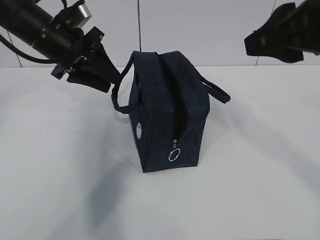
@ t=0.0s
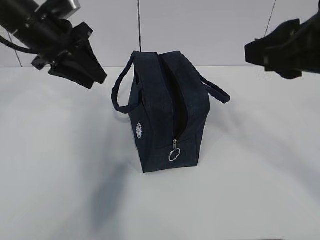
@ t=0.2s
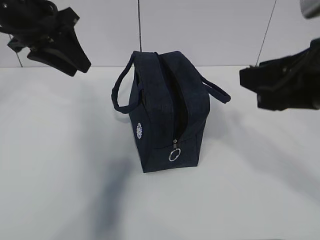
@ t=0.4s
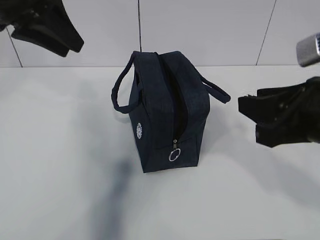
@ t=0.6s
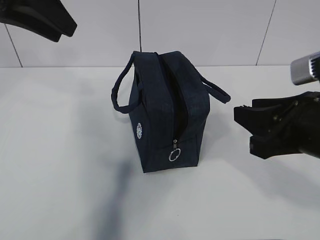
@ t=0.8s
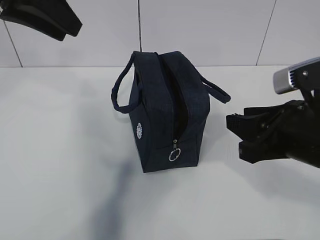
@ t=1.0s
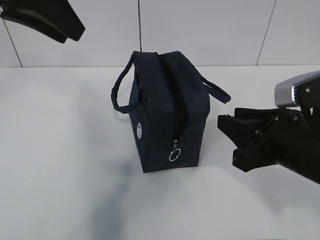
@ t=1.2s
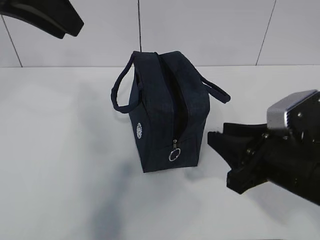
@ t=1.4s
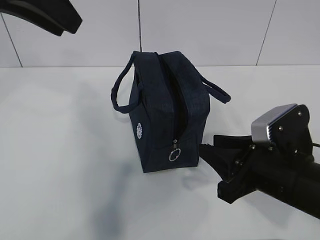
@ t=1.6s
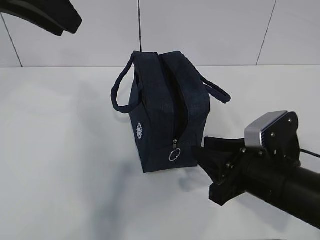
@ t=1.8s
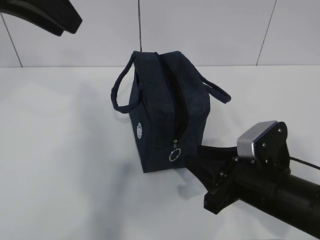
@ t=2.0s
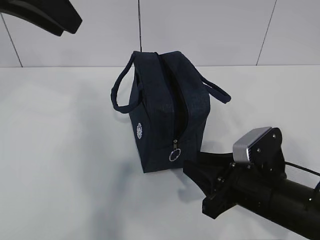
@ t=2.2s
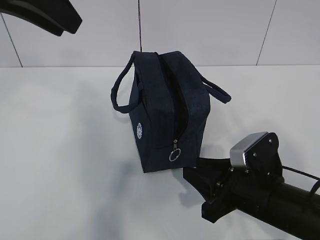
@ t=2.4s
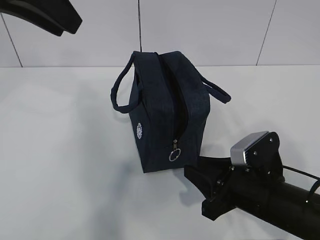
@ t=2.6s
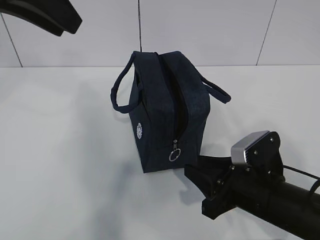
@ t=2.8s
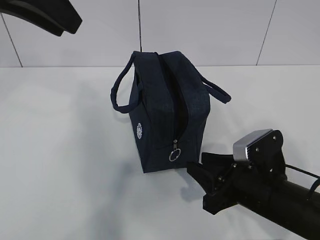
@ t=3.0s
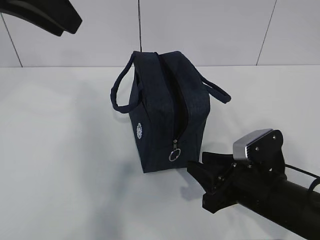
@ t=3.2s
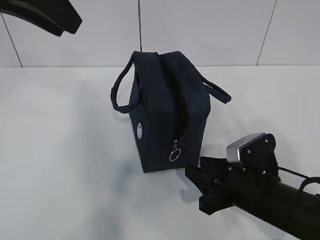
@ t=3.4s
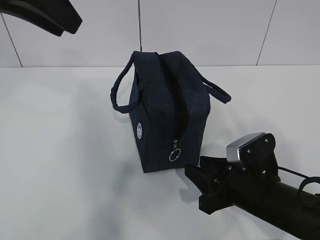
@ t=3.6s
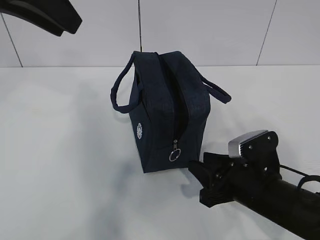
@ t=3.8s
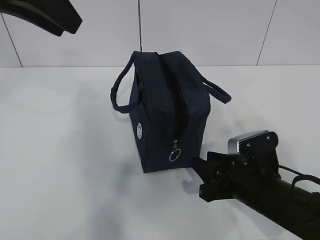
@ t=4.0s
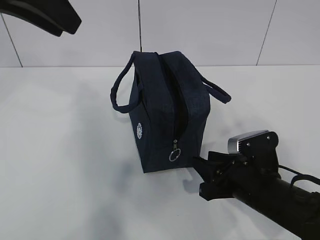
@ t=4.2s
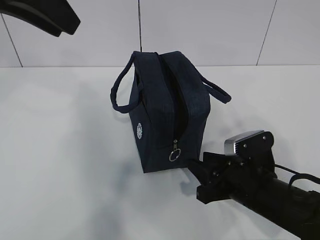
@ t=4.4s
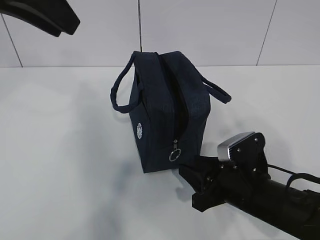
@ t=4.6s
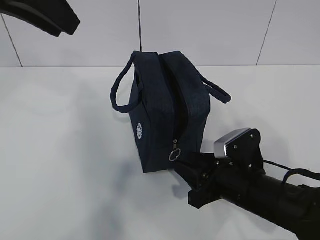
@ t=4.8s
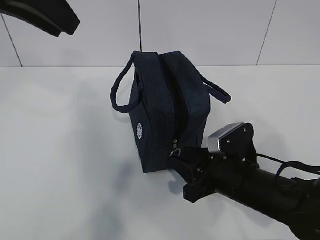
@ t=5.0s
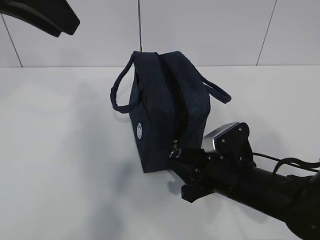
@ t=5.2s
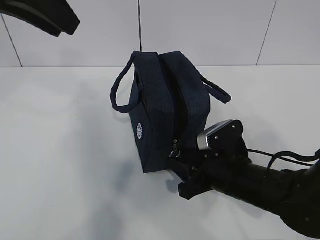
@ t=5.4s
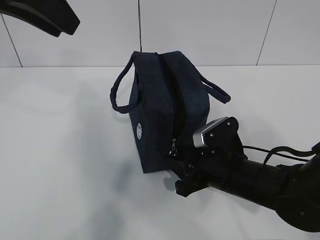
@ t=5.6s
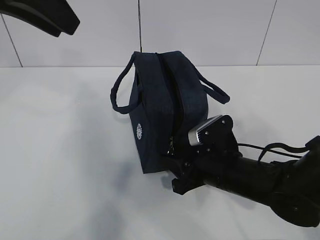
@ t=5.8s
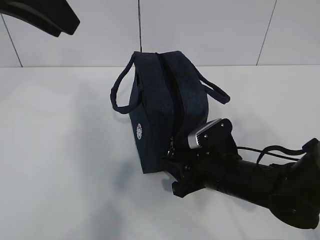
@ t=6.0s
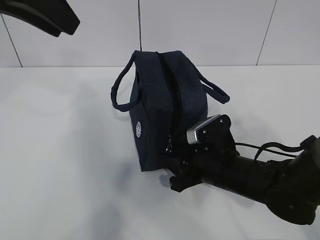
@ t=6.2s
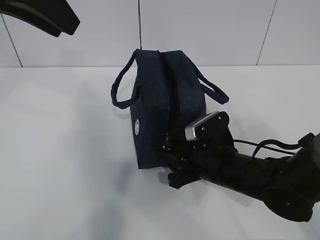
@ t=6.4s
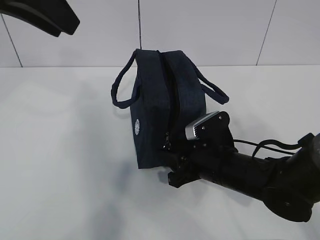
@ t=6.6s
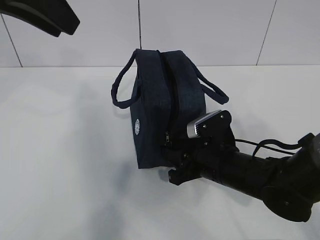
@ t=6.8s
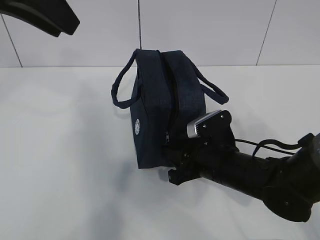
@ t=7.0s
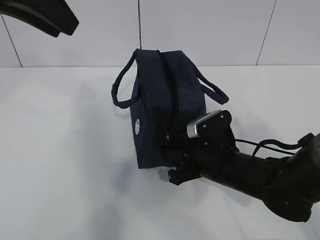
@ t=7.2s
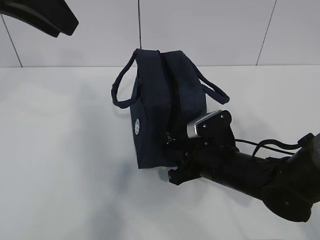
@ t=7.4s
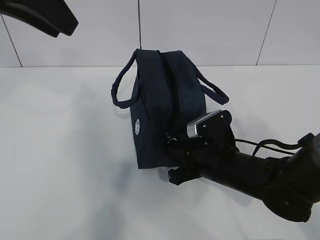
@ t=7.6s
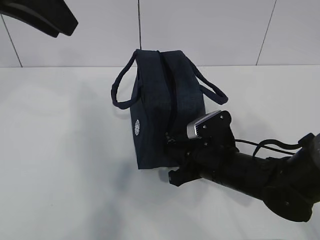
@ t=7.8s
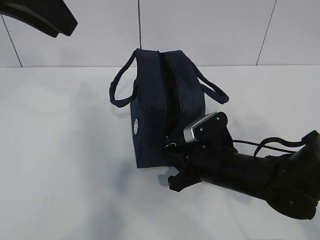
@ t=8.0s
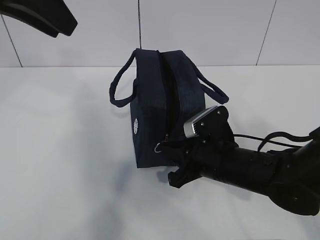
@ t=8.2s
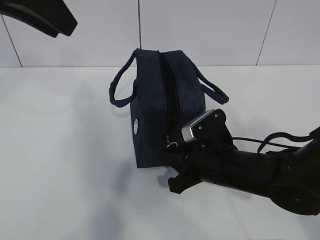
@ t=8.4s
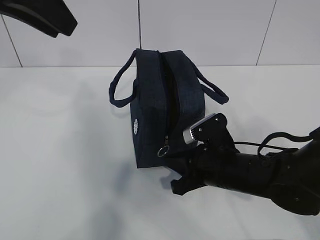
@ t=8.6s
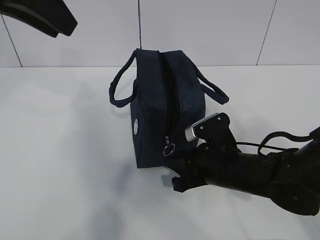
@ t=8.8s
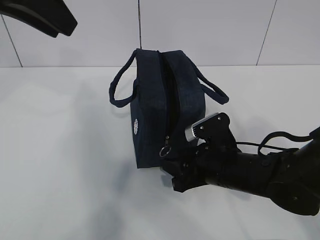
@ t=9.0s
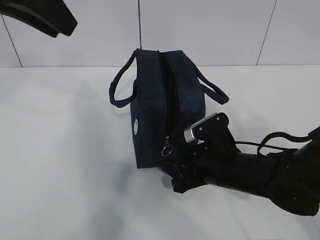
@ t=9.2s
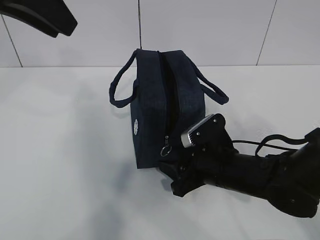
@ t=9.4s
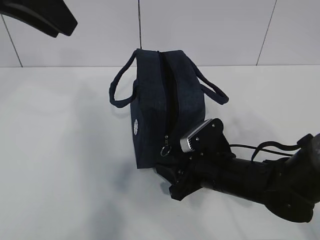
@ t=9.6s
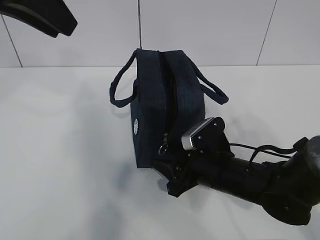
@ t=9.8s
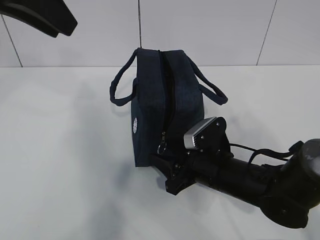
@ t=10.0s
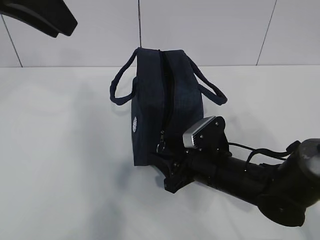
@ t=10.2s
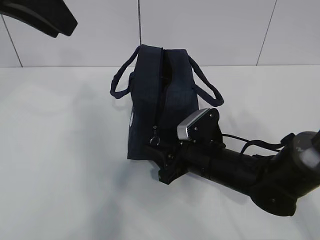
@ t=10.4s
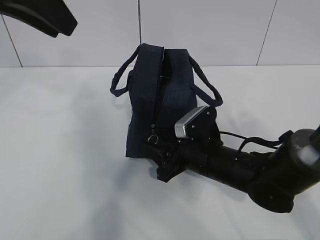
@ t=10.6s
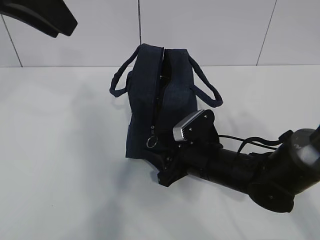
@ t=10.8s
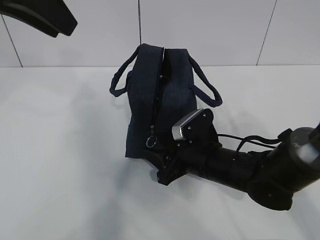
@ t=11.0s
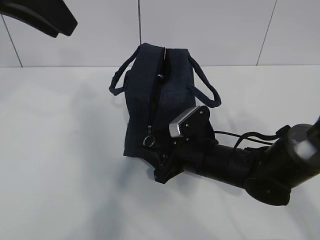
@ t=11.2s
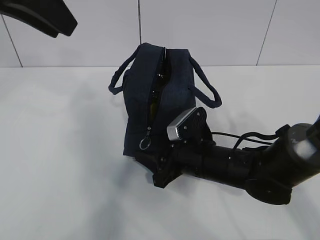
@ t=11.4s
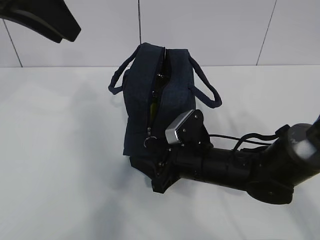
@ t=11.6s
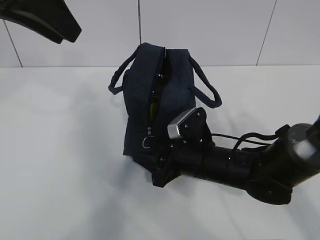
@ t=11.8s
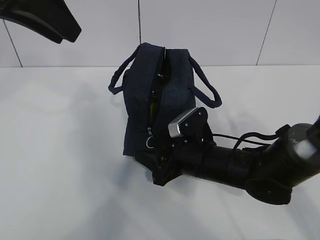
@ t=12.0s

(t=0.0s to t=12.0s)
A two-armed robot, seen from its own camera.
t=0.0s - t=1.6s: The right gripper moves downward, approximately 20 cm. The left gripper is displaced upward and backward by roughly 20 cm.
t=1.6s - t=3.0s: The right gripper is displaced downward by approximately 5 cm.
t=3.0s - t=4.4s: The grippers stay close to where they were, moving slightly.
t=4.4s - t=6.0s: The right gripper shifts by roughly 5 cm.
t=6.0s - t=7.6s: The right gripper closes its fingers.
t=7.6s - t=9.0s: The right gripper opens its fingers.
t=9.0s - t=10.4s: The grippers make only small movements.
t=10.4s - t=12.0s: There are only small adjustments of the grippers.

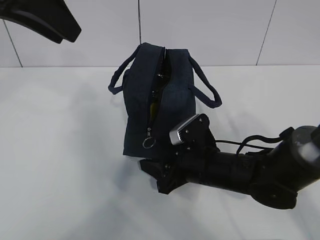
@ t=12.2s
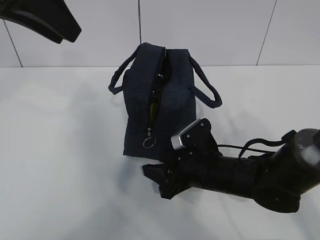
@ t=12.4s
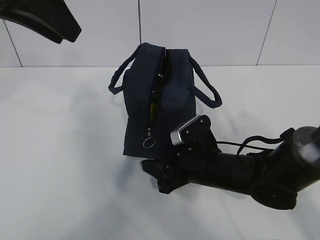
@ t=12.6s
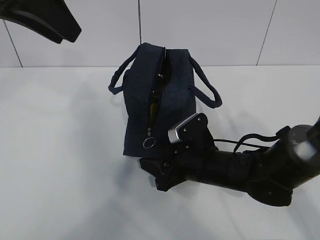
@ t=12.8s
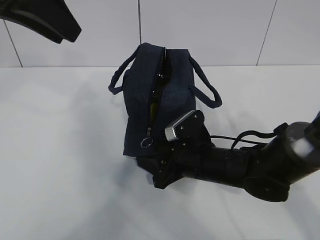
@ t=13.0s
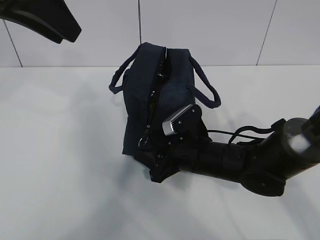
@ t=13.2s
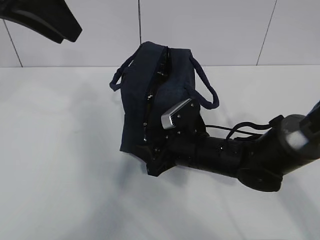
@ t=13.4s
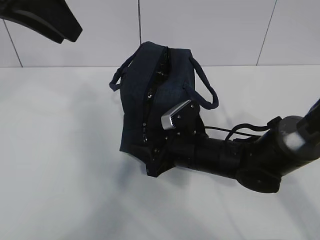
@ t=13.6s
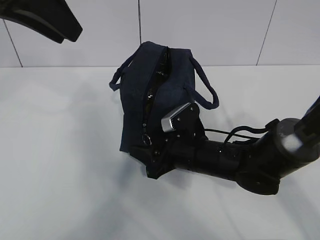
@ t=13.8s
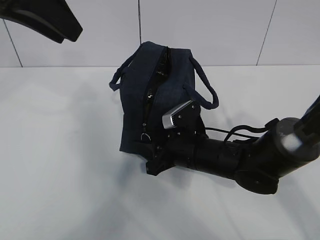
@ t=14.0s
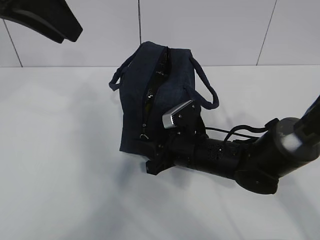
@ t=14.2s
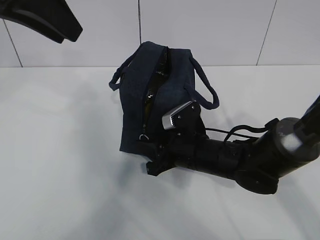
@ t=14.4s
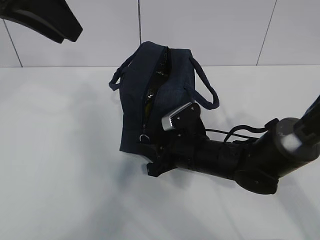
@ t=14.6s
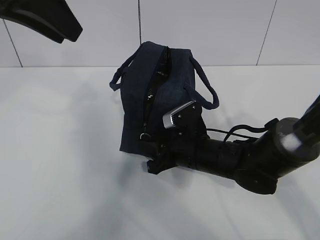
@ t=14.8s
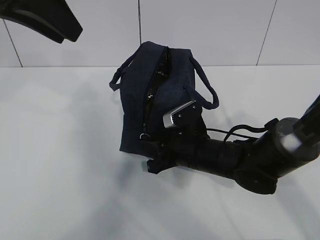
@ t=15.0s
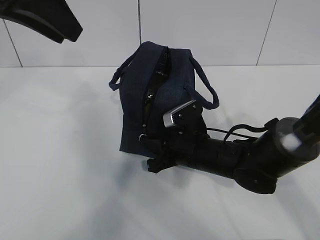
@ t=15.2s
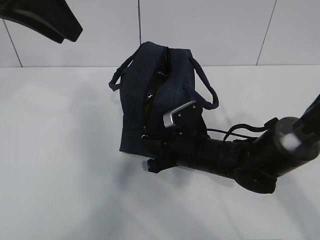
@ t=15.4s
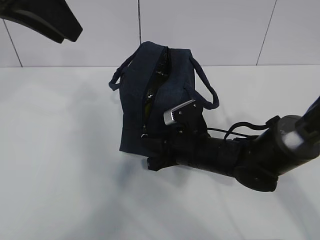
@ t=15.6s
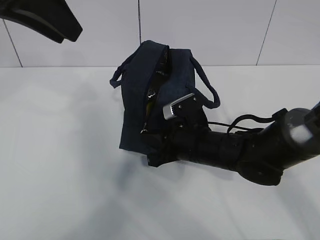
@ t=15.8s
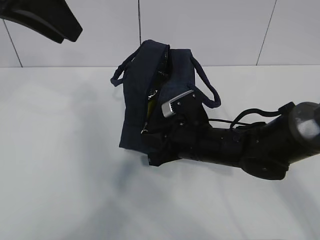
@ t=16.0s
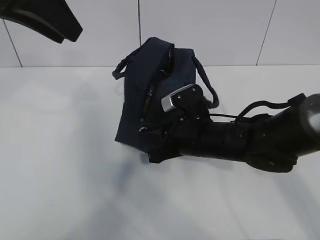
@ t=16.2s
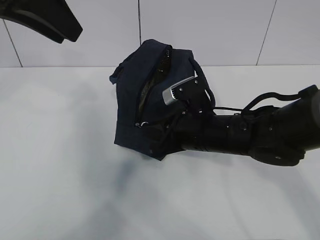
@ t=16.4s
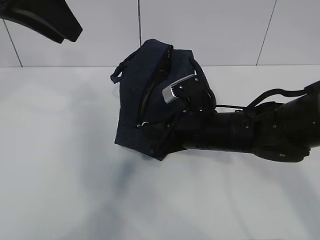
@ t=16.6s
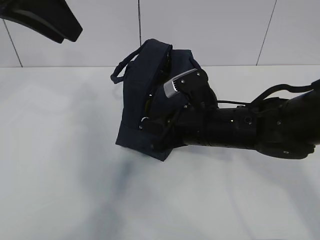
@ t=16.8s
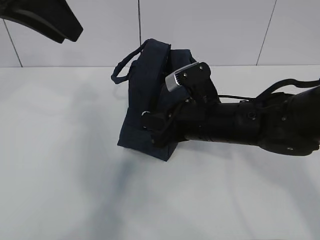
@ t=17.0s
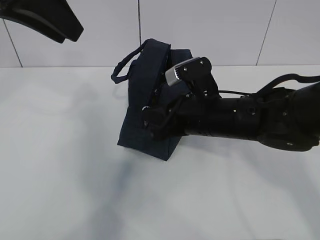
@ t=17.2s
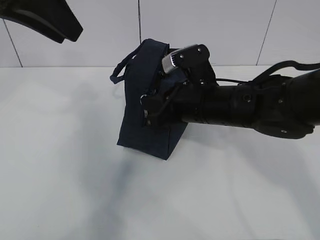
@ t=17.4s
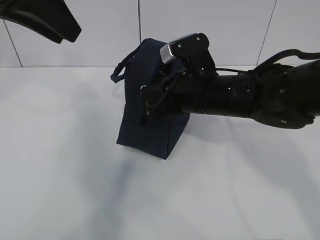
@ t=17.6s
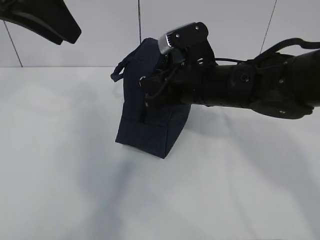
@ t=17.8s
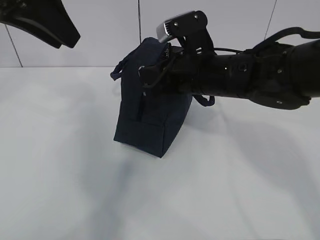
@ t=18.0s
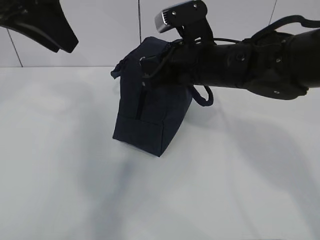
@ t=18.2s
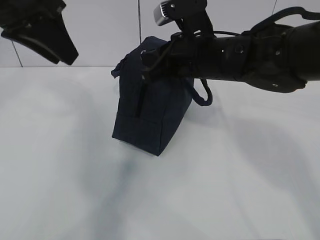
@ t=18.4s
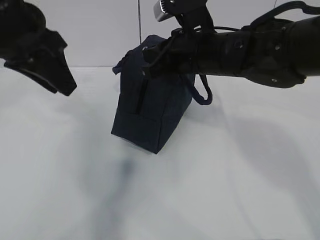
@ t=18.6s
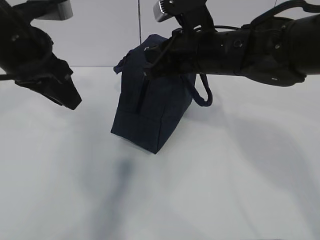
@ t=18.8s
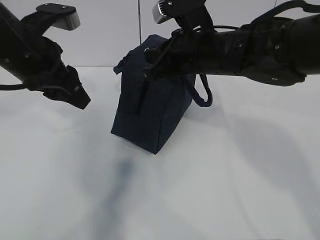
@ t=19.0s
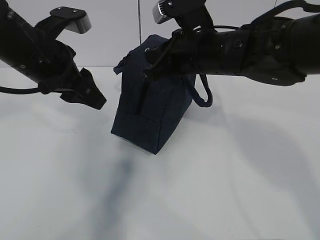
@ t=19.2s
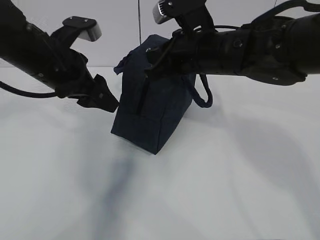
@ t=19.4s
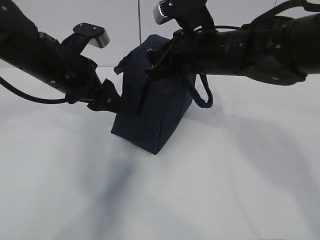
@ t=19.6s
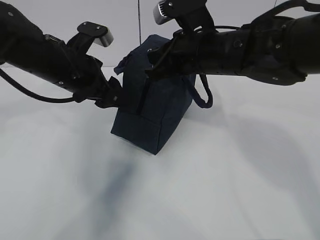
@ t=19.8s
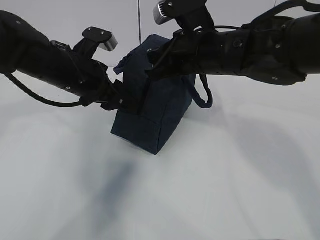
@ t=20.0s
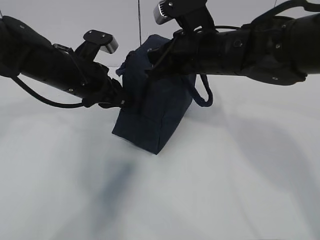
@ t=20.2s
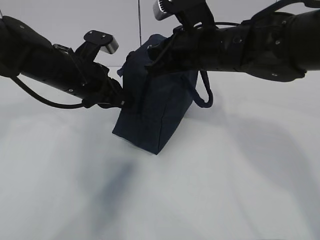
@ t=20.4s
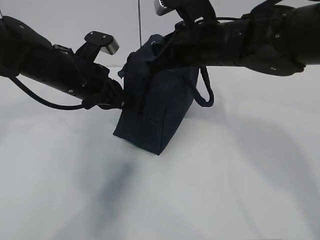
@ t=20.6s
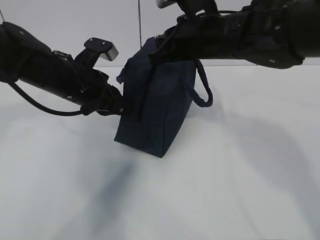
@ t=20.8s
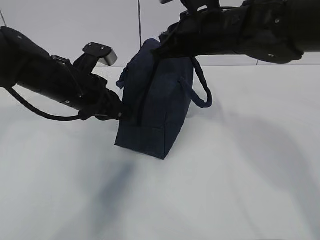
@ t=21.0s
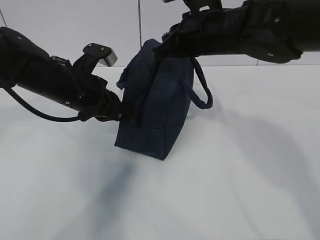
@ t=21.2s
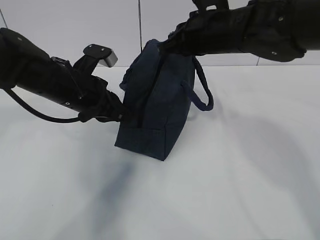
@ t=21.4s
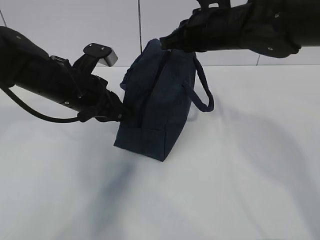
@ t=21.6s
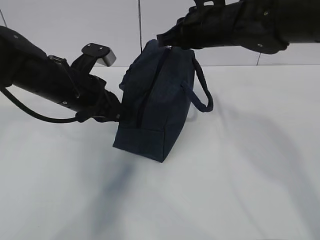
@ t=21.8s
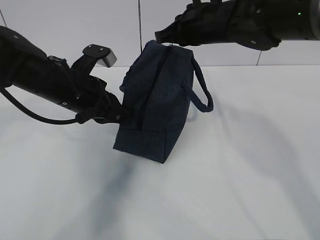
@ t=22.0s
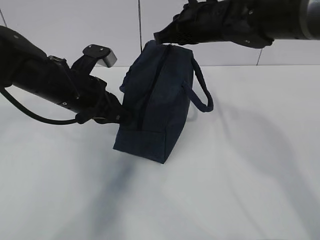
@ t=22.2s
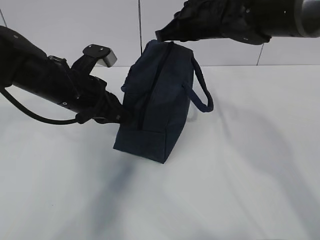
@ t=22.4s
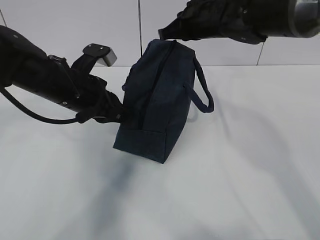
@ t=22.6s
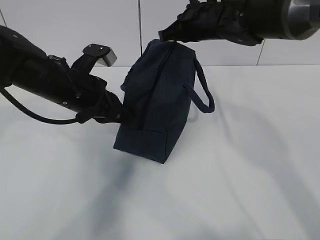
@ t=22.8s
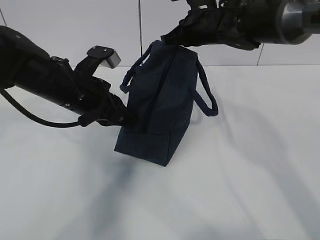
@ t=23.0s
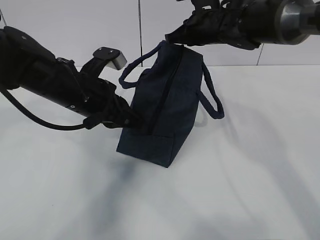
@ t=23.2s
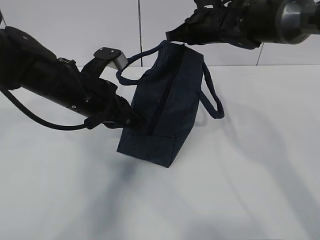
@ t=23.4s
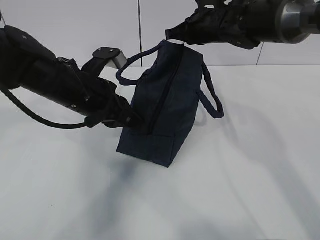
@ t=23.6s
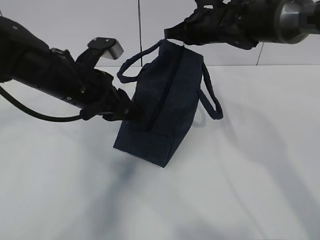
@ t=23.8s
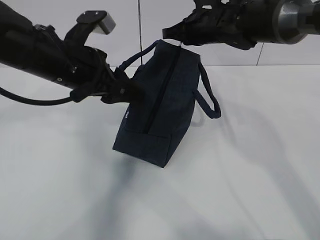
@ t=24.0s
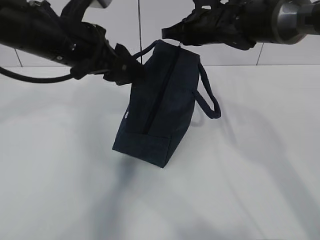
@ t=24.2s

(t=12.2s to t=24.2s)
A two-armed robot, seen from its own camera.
Step, t=12.4s - t=19.0s: Pull the zipper with your right hand.
Step, t=19.2s - t=19.6s: Grab the lunch bag with your left hand.
t=12.2s - t=13.8s: There are only small adjustments of the grippers.
t=13.8s - t=15.2s: The right gripper closes.
t=15.2s - t=16.6s: The right gripper shifts about 5 cm upward.
t=16.6s - t=18.2s: The right gripper heads upward, covering about 10 cm.
t=18.2s - t=19.8s: The left gripper is displaced downward by roughly 15 cm, and opens up.
t=19.8s - t=21.2s: The left gripper closes up.
t=21.2s - t=22.6s: The right gripper heads forward, covering approximately 10 cm.
t=22.6s - t=24.2s: The left gripper shifts roughly 10 cm upward, and opens.
